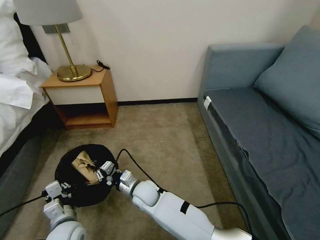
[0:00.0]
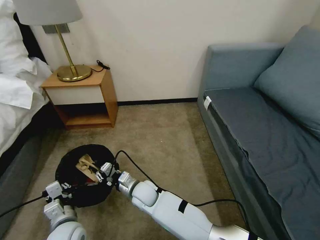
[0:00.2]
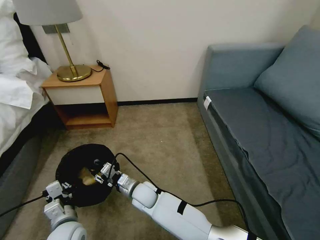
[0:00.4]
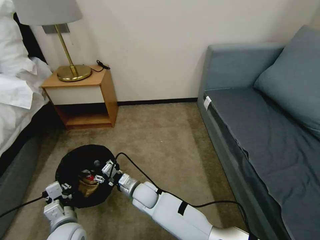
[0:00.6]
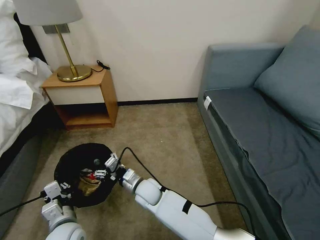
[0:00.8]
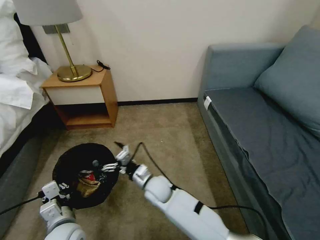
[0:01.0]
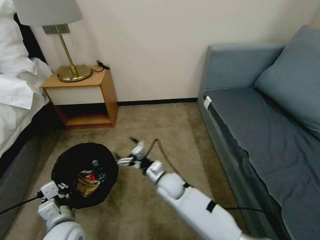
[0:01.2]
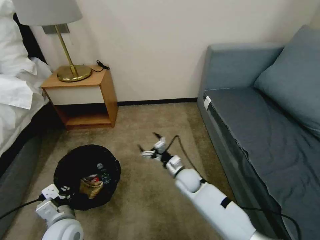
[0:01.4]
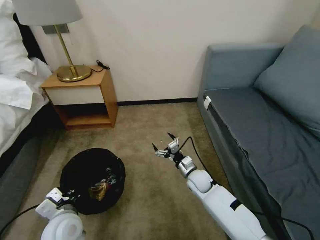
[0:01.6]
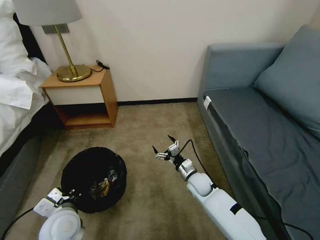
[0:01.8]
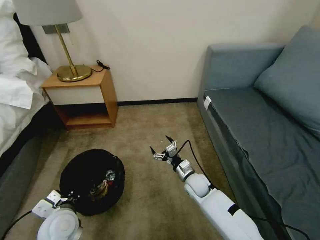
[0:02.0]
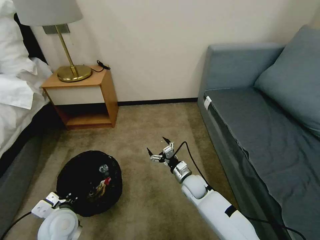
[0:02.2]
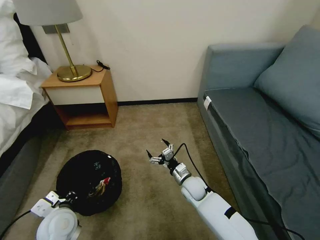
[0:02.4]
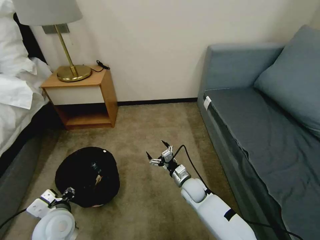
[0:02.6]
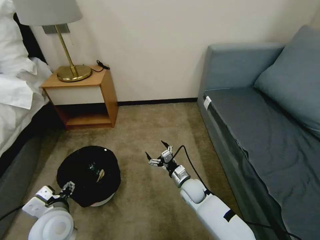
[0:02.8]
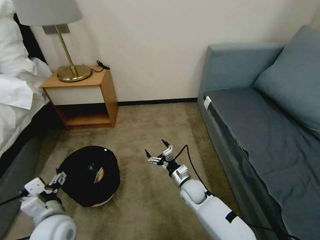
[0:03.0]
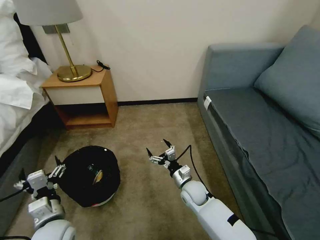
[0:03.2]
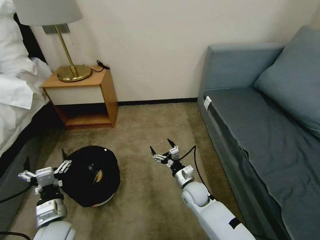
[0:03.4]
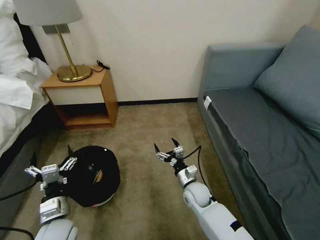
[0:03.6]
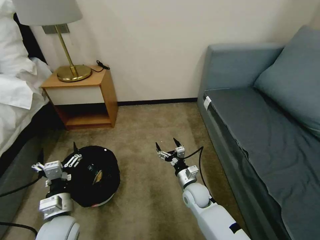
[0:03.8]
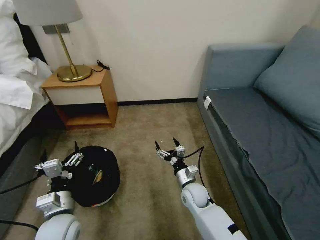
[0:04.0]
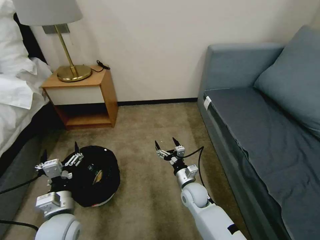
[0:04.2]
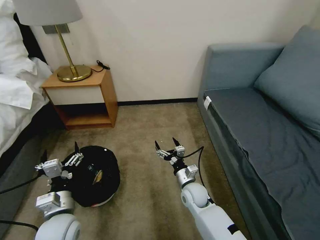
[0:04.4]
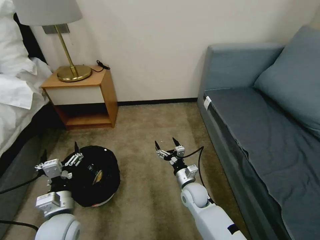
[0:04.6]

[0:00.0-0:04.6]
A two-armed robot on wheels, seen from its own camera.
Task of the whole recording: Pick up the trash bin, then pick up the garbage on the floor and place it into the trash bin.
0:00.0 to 0:01.6: The right gripper heads to the right, covering some 20 cm, and opens its fingers.
0:01.6 to 0:03.0: The left gripper opens; the right gripper changes place by about 5 cm.

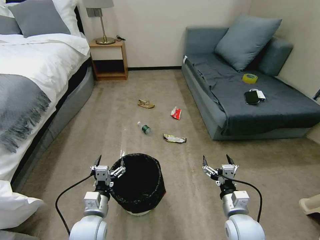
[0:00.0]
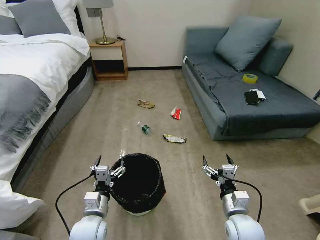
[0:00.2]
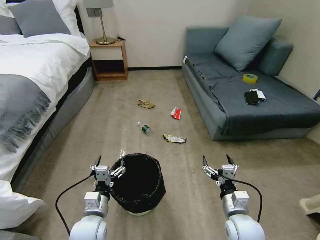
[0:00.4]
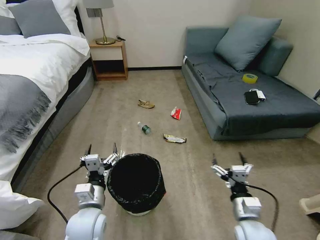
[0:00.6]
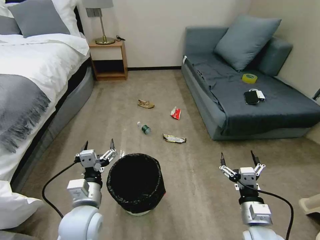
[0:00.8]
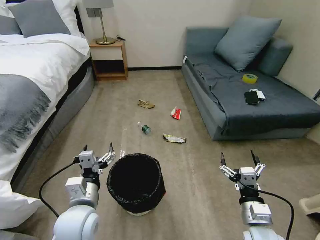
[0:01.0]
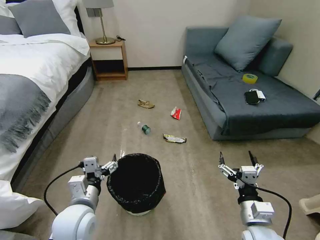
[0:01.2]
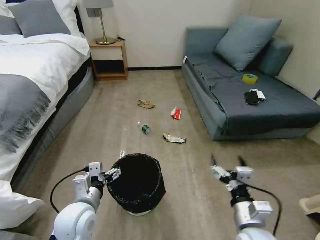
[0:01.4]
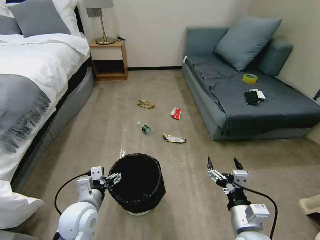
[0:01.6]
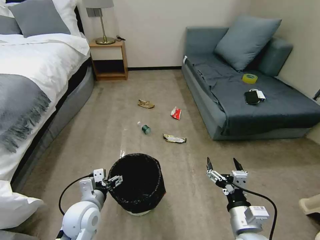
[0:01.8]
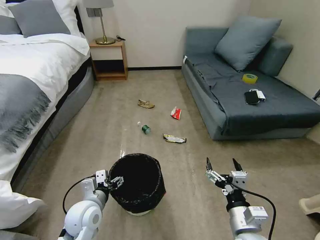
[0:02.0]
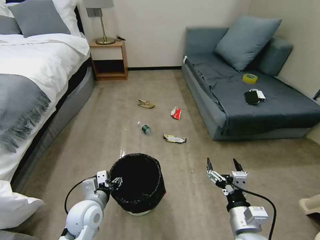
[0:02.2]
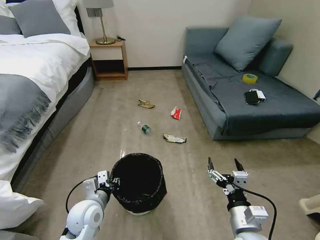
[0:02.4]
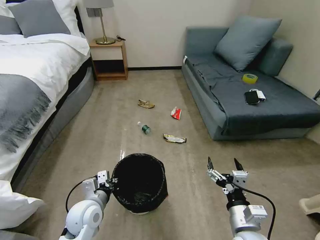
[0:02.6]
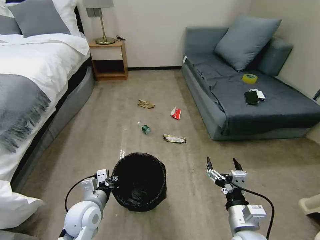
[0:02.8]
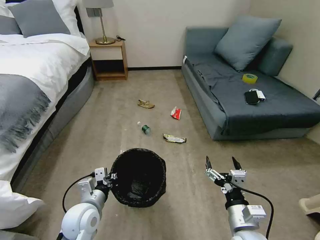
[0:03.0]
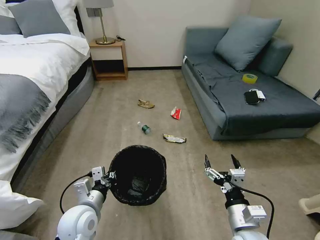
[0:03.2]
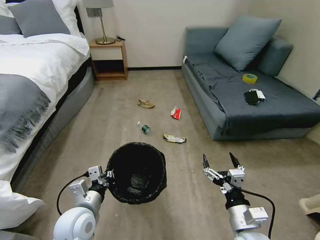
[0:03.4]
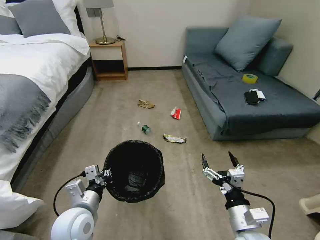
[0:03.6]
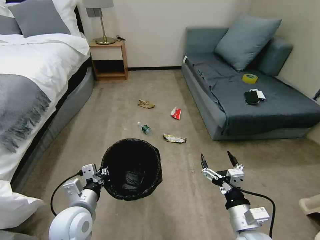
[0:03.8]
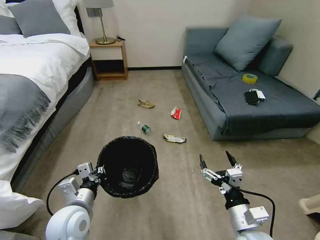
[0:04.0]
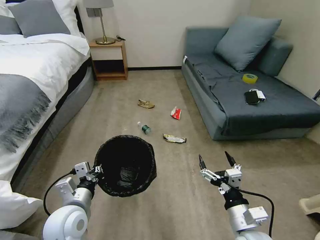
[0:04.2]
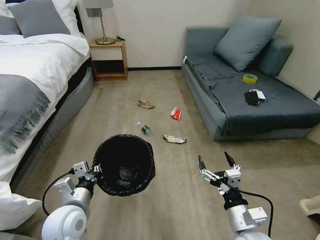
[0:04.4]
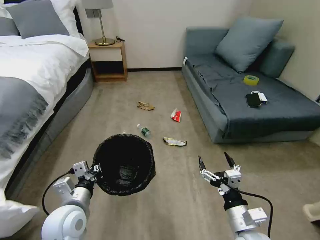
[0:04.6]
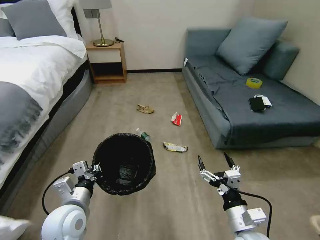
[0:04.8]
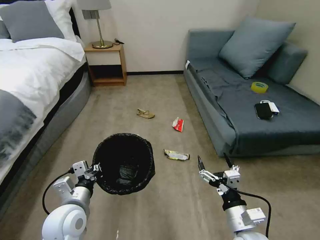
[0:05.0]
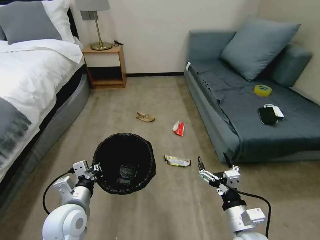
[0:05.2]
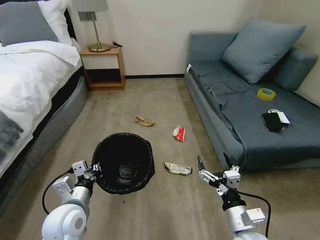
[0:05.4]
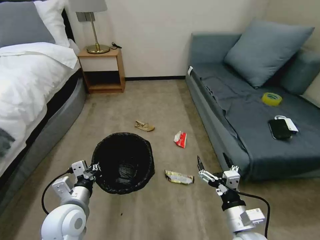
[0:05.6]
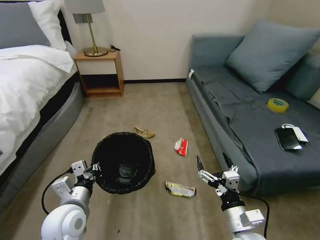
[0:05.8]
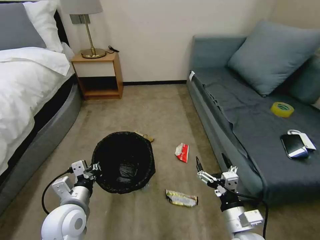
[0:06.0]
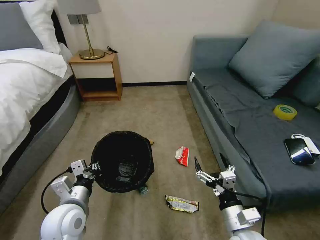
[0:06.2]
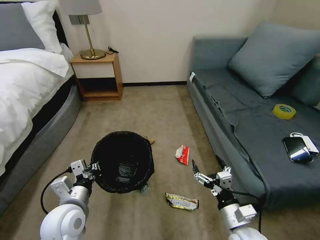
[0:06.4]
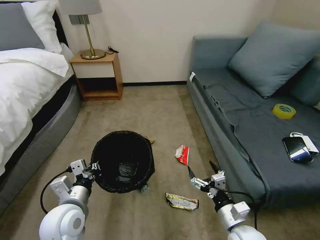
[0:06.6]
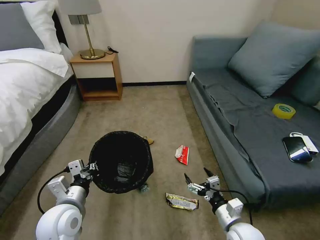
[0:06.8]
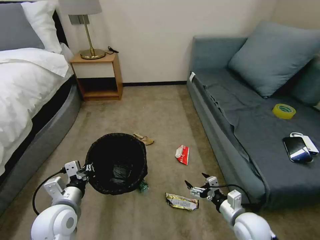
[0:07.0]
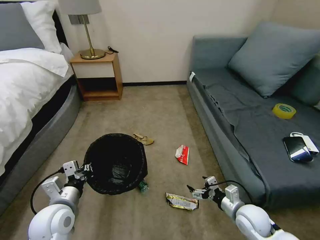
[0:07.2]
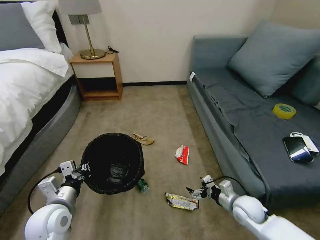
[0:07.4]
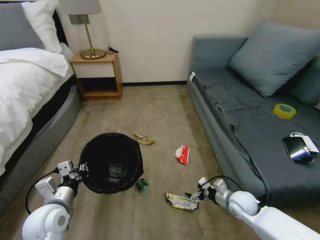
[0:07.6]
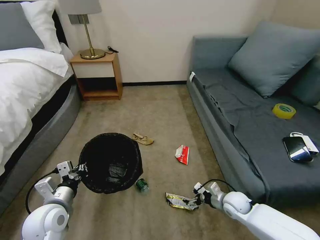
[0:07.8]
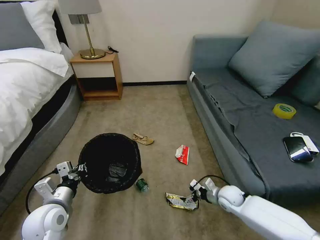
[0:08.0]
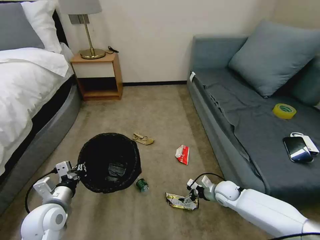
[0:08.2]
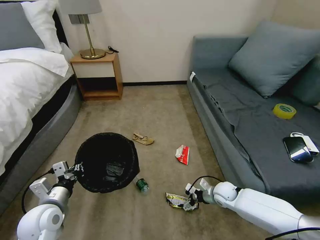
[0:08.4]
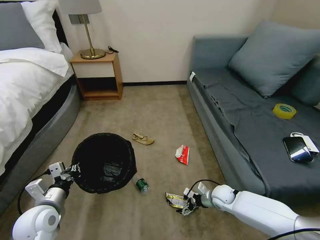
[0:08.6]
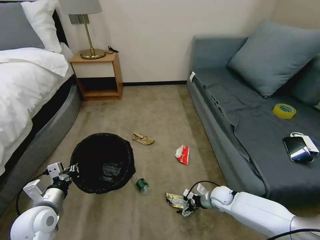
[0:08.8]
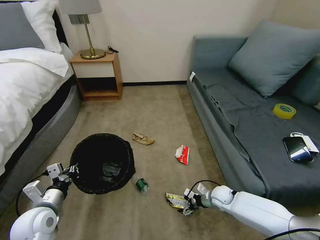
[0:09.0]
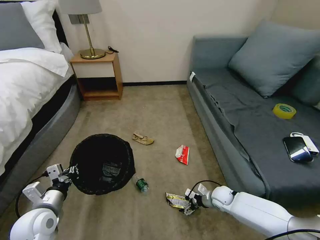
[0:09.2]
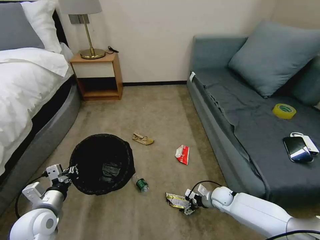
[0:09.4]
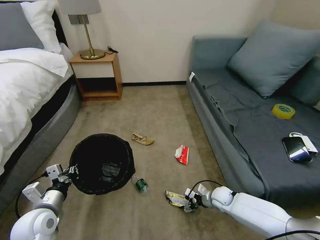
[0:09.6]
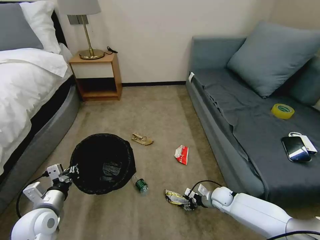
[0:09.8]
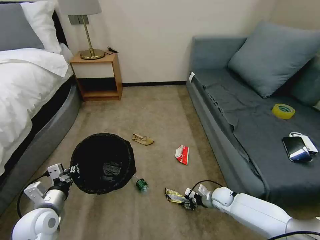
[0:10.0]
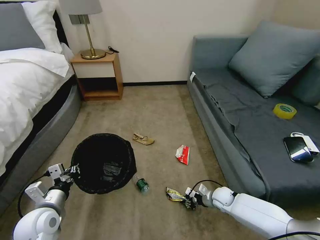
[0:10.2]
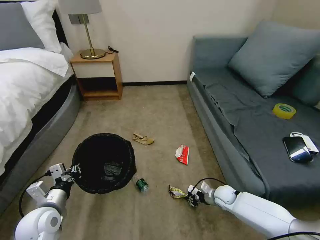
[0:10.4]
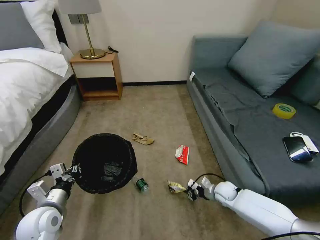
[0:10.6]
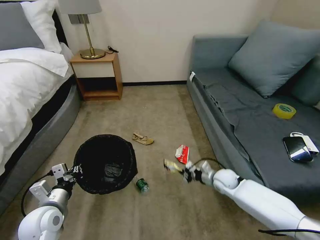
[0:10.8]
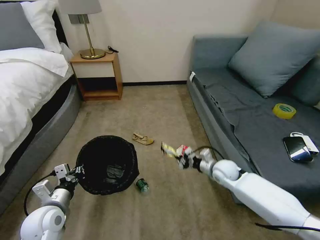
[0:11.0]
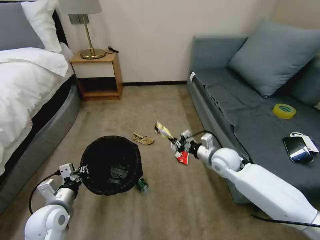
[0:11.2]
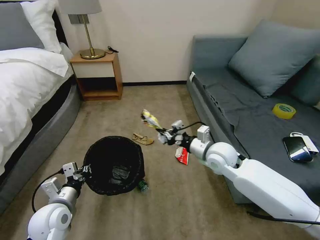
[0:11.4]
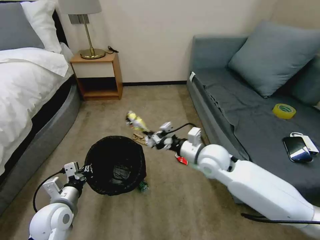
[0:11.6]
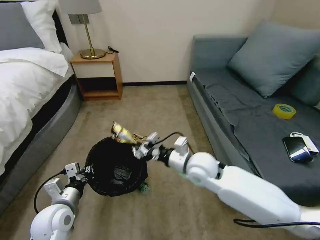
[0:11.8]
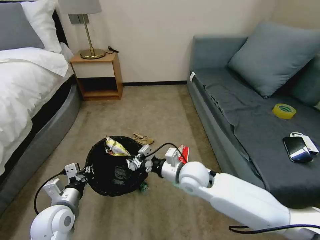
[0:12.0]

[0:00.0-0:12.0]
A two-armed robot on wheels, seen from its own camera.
Task of the whole recording: Pick up the trash bin, then pick up the garbage on the floor and place it into the trash bin.
0:01.6 to 0:03.0: The left gripper closes its fingers.
0:03.0 to 0:04.4: The left gripper moves about 5 cm.
0:06.0 to 0:07.6: The left gripper travels to the left by roughly 5 cm. Meanwhile the right gripper moves forward, downward and to the right, approximately 20 cm.
0:07.6 to 0:09.0: The right gripper moves downward and forward, some 10 cm.
0:09.0 to 0:10.4: The right gripper closes its fingers.
0:10.4 to 0:12.0: The right gripper travels upward and to the left by roughly 30 cm.

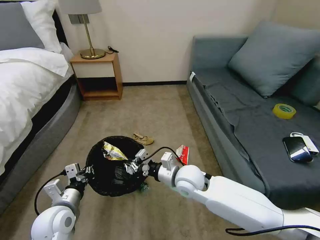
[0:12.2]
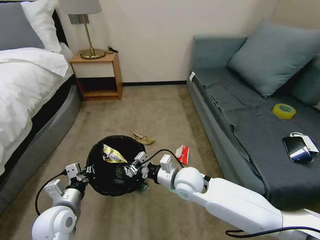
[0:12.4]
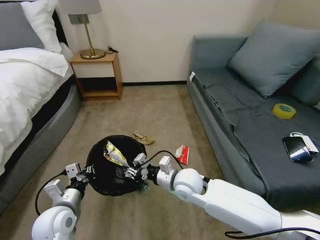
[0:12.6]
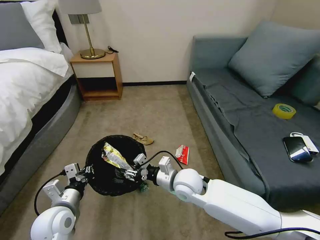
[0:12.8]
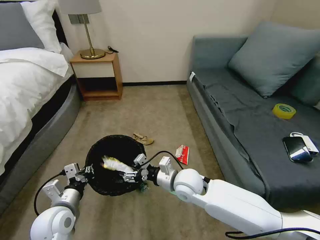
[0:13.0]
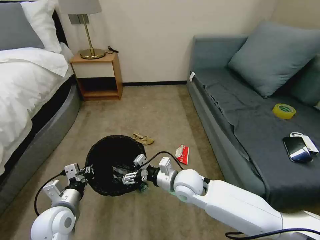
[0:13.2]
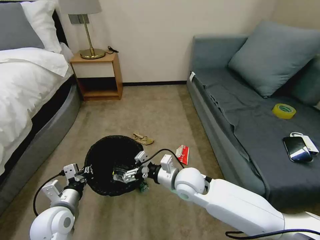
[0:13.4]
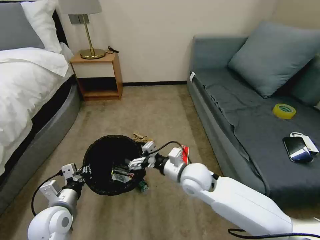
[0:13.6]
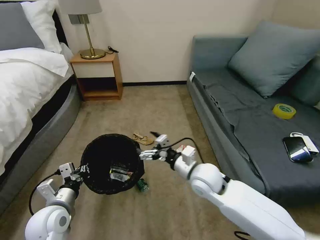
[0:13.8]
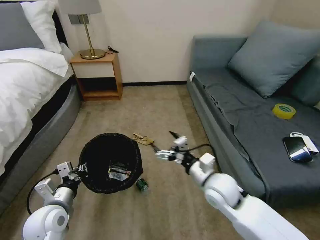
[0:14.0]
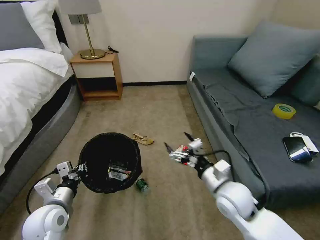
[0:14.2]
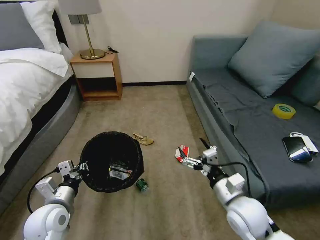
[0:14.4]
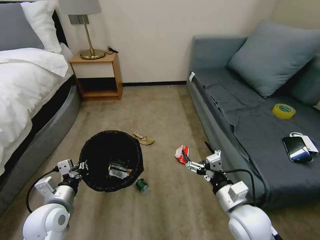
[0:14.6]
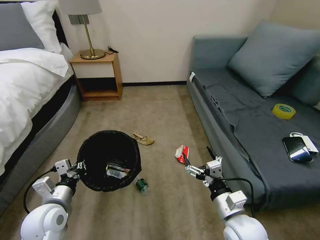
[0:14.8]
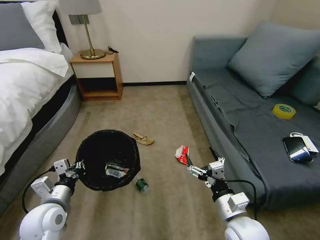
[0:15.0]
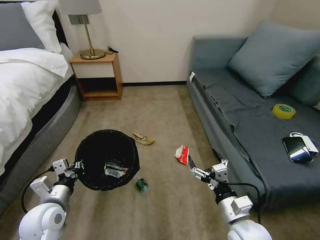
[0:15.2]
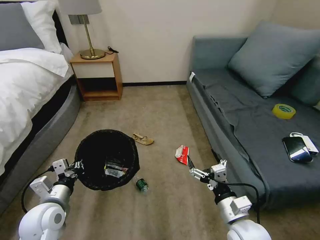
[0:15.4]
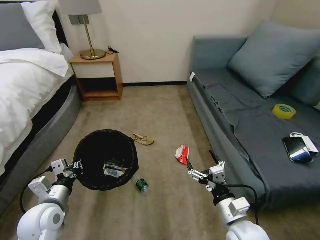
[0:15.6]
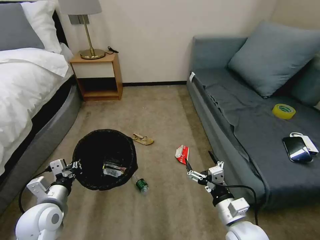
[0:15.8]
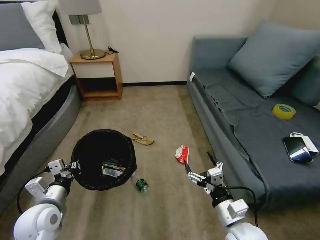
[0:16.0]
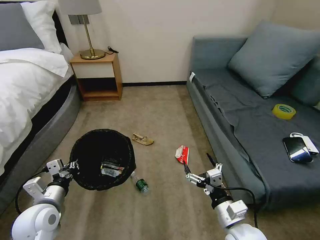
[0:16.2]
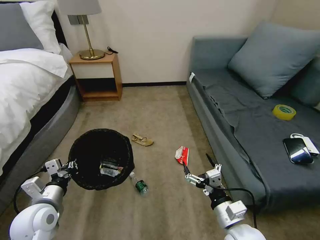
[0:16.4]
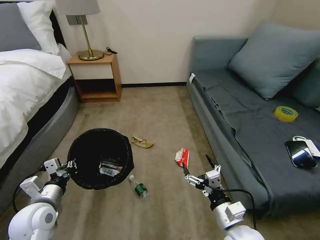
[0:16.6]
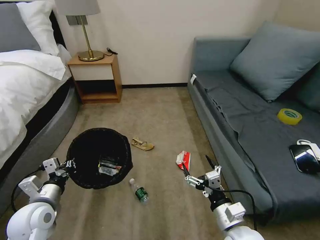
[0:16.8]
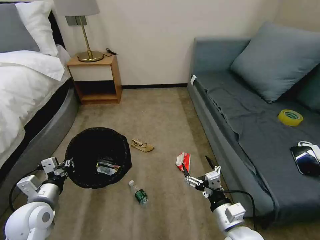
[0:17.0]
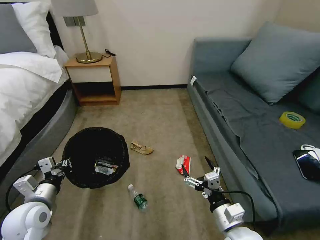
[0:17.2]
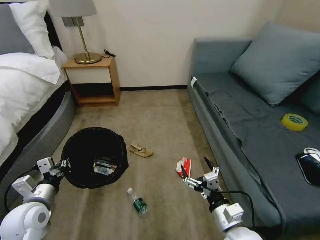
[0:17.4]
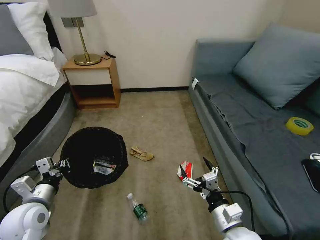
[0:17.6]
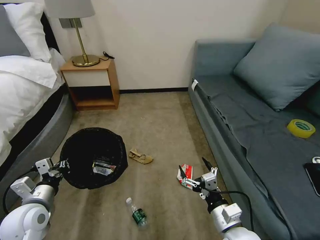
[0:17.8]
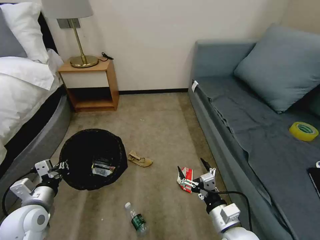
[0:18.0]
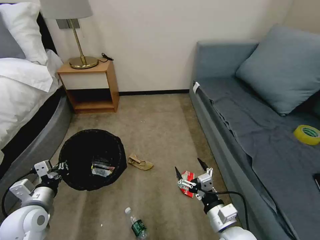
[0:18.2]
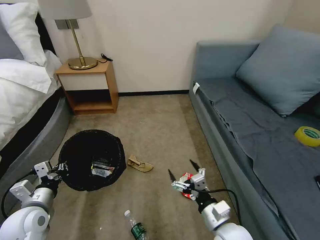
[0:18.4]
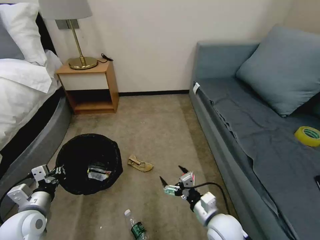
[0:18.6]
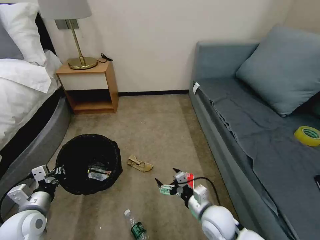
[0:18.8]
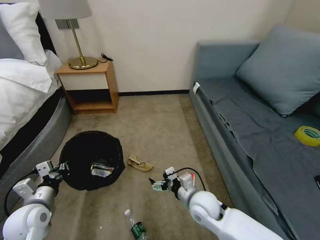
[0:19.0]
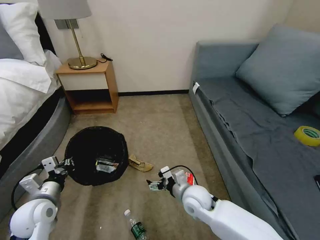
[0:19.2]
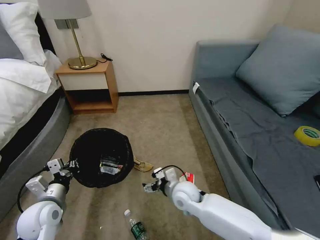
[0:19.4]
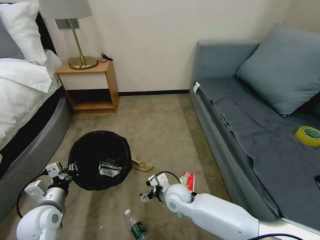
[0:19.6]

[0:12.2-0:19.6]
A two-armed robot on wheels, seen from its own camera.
Task of the whole recording: Pick up the trash bin, then pick up the garbage on the floor and place it into the trash bin.
0:12.2 to 0:13.6: The right gripper opens up.
0:13.6 to 0:15.2: The right gripper is displaced backward and to the right by roughly 20 cm.
0:15.2 to 0:16.6: The grippers make only small movements.
0:18.2 to 0:19.6: The right gripper heads forward and to the left, covering roughly 20 cm.
